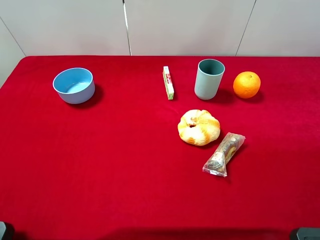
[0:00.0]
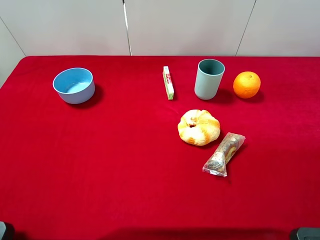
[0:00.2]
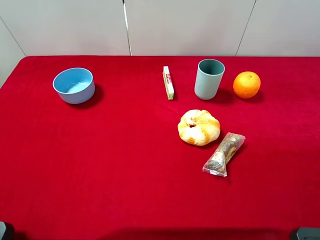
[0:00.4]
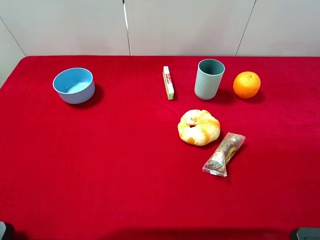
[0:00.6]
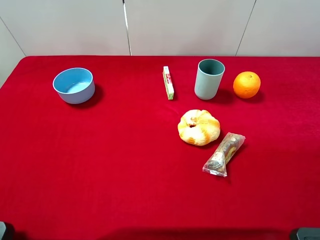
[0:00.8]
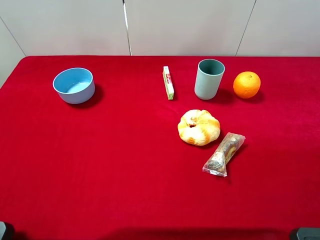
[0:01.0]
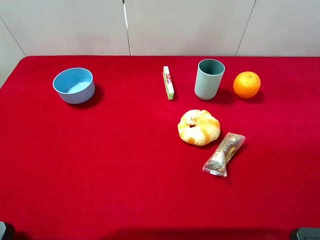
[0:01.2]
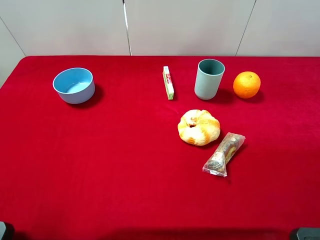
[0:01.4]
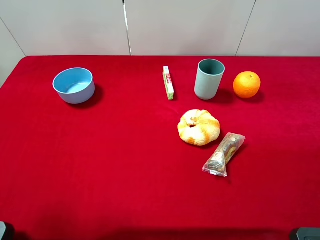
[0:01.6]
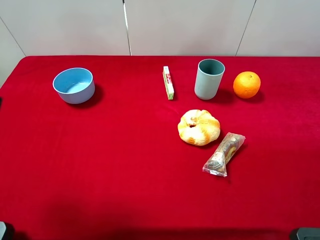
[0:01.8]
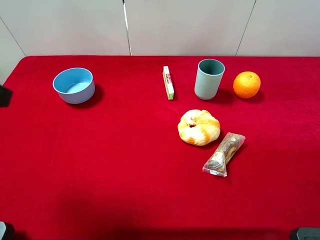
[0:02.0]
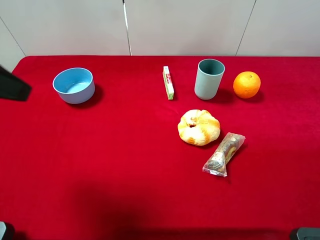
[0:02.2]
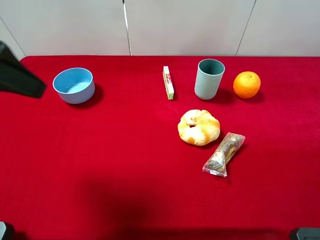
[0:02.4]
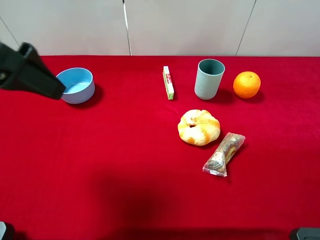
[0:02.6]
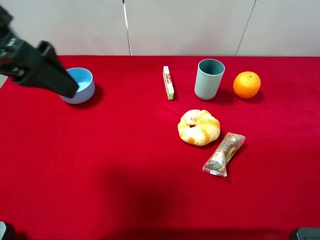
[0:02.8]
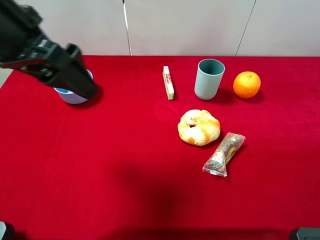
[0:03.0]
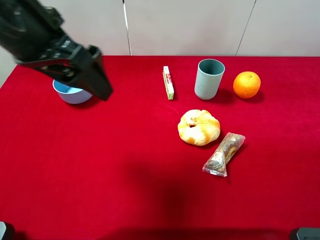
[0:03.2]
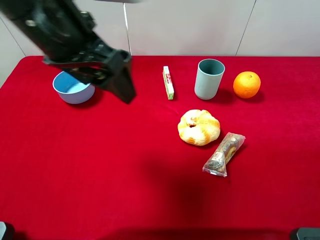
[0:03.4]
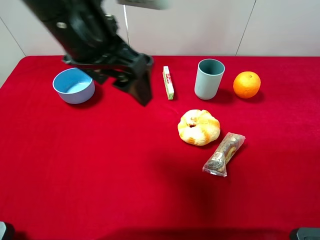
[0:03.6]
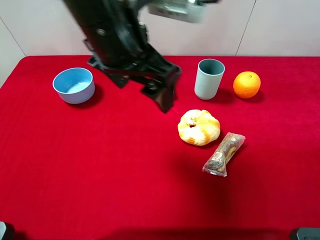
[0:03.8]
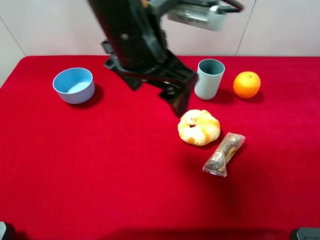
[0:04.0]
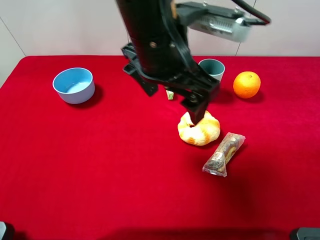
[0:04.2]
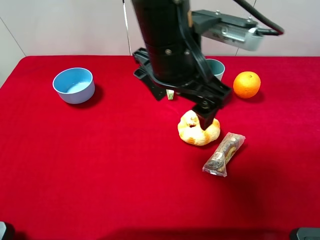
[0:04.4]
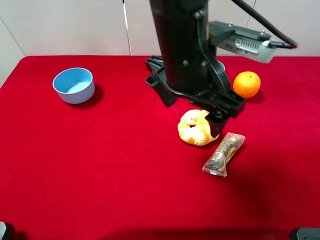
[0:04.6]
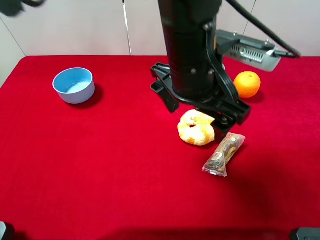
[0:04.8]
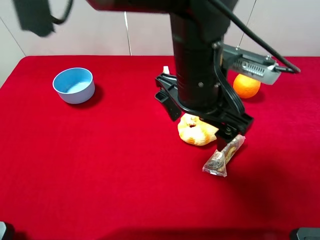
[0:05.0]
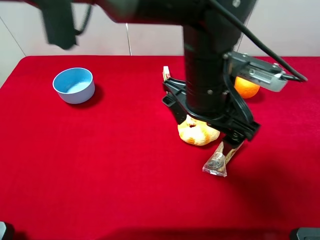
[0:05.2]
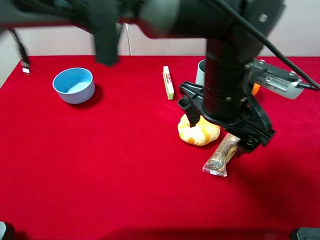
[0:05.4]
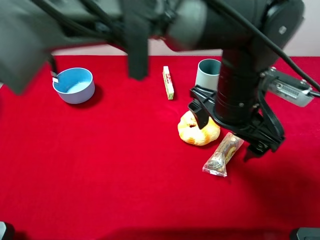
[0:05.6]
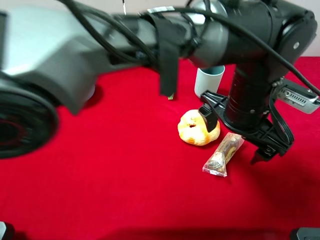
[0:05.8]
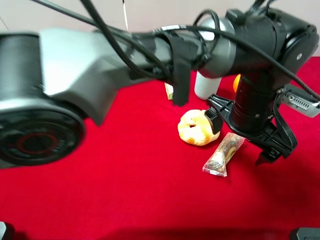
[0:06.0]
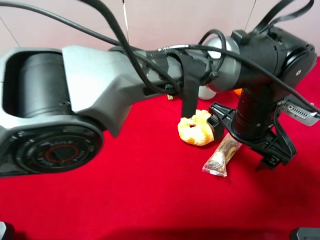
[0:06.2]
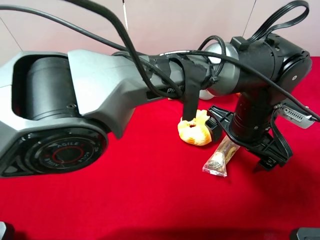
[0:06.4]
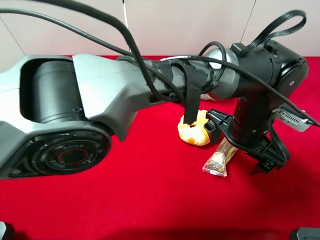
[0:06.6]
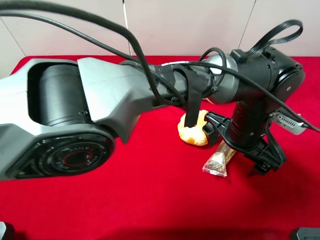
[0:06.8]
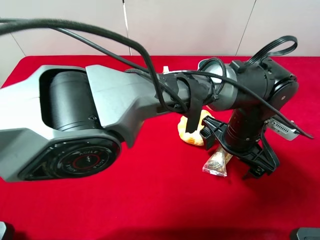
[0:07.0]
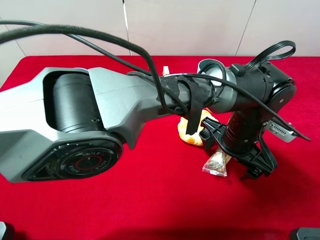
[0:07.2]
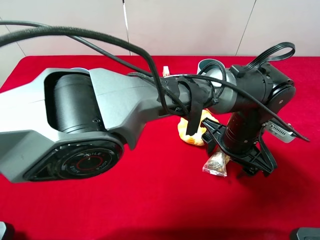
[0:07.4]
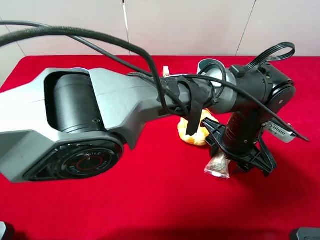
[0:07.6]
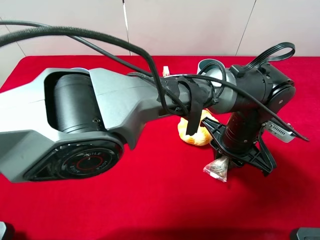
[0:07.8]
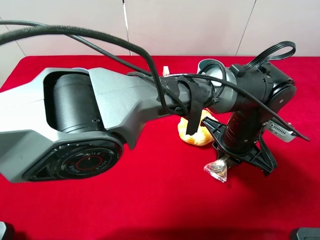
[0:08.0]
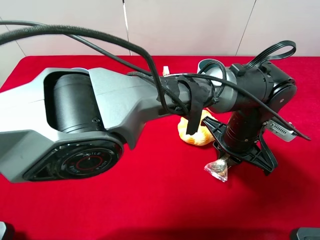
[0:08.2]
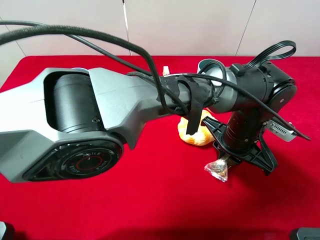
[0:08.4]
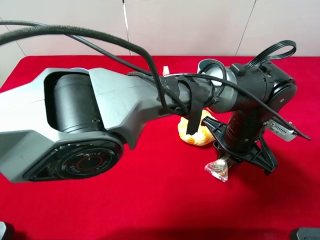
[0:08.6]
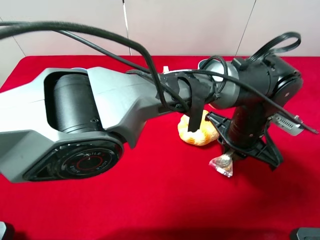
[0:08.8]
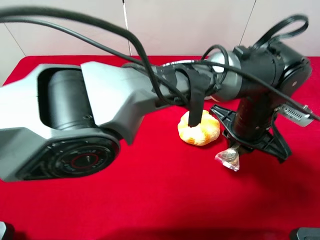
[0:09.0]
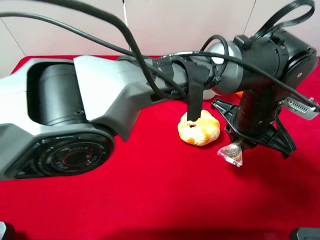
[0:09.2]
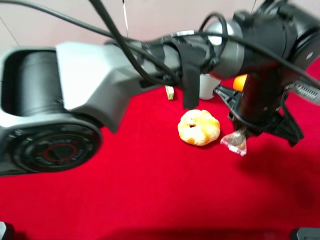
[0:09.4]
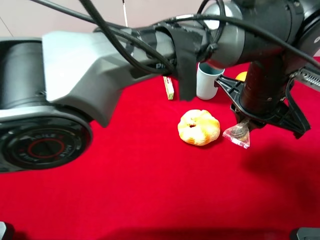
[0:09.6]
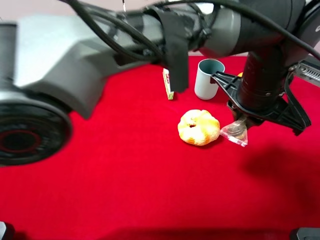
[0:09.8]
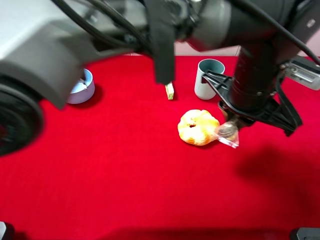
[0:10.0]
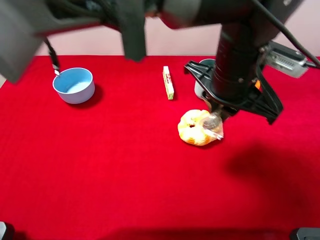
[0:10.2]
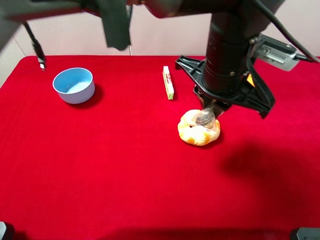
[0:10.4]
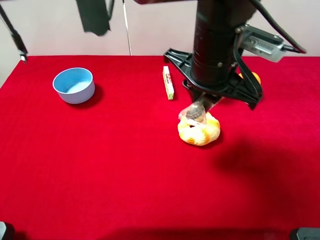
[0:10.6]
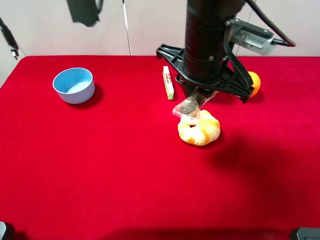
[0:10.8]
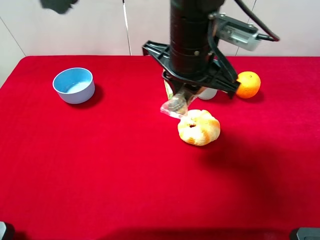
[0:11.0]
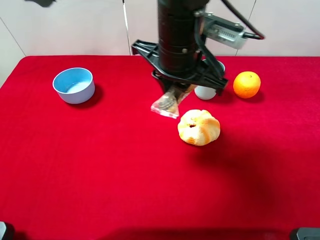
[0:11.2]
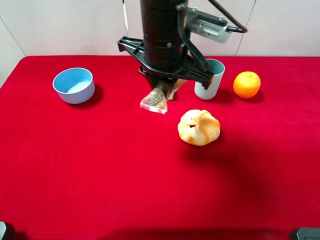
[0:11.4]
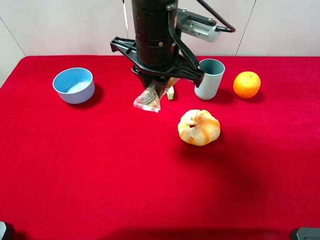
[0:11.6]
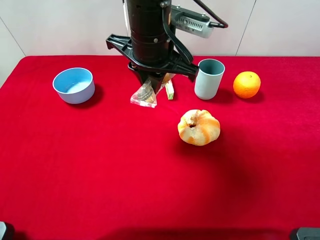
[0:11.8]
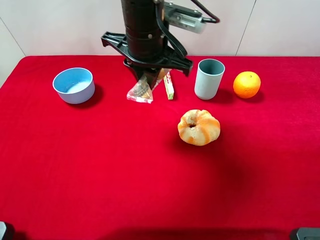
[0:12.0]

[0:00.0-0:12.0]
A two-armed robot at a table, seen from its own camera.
Task of the whole recording: the gripper move the object.
Step, 0:00.0 to 0:08.0: Grasp the chocolate with the left gripper.
0:01.6 to 0:03.0: The left gripper is displaced to the right and forward by some 15 cm.
0:03.0 to 0:04.4: The left gripper moves to the right, some 20 cm.
0:04.4 to 0:06.0: The left gripper travels to the right and downward by some 15 cm.
0:06.0 to 0:07.6: The left gripper heads downward, covering approximately 5 cm, and closes.
0:07.6 to 0:09.0: The left gripper closes.
0:09.0 to 0:10.4: The left gripper travels upward and to the left by roughly 10 cm.
0:10.4 to 0:12.0: The left gripper goes about 15 cm to the left and forward.

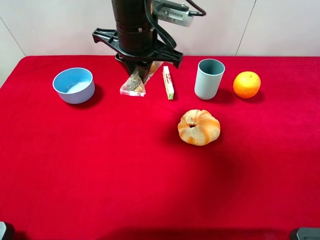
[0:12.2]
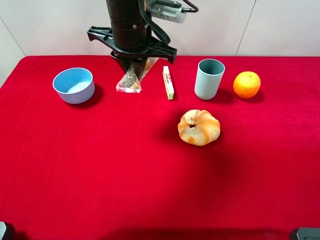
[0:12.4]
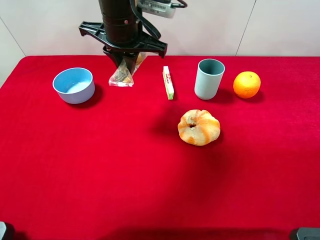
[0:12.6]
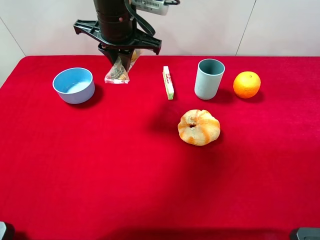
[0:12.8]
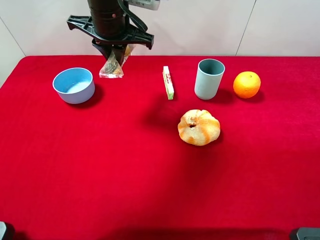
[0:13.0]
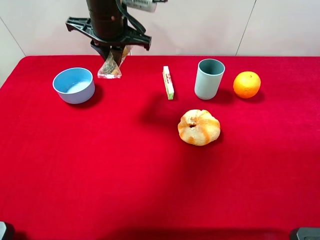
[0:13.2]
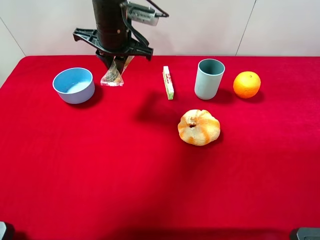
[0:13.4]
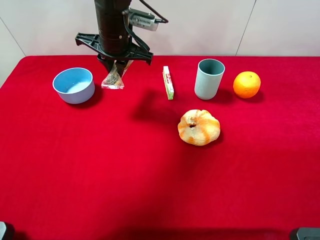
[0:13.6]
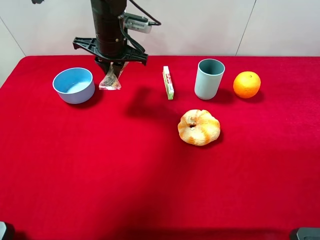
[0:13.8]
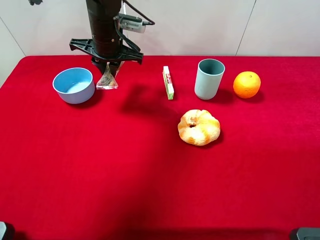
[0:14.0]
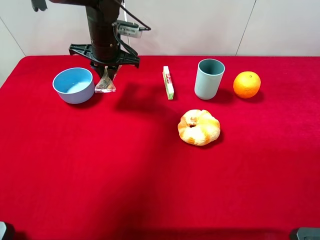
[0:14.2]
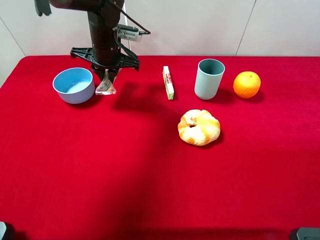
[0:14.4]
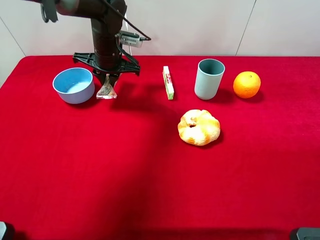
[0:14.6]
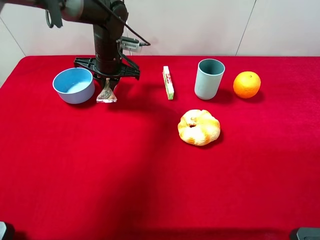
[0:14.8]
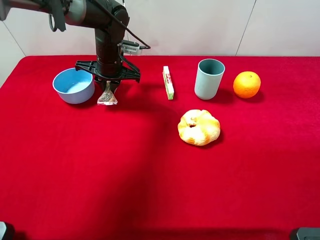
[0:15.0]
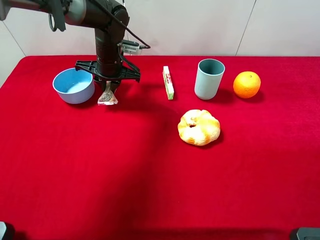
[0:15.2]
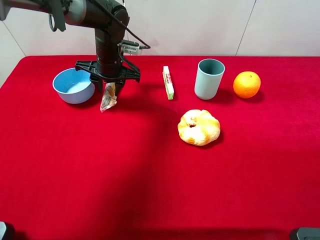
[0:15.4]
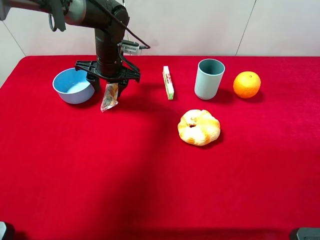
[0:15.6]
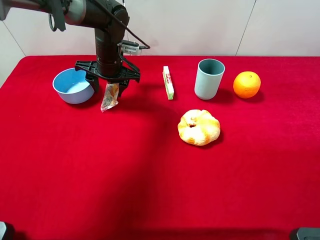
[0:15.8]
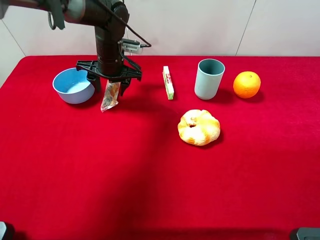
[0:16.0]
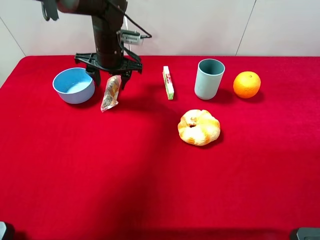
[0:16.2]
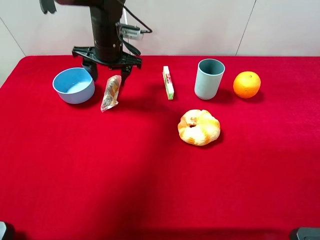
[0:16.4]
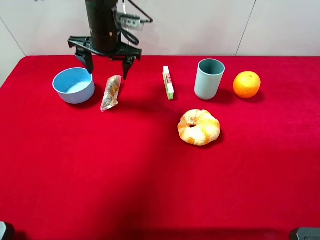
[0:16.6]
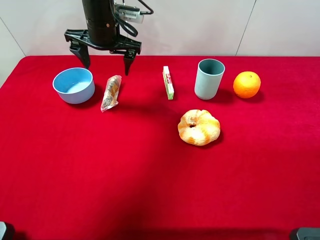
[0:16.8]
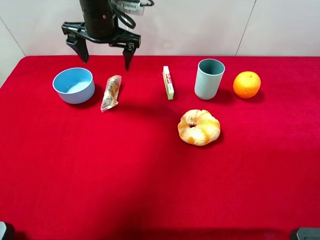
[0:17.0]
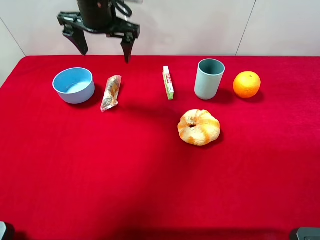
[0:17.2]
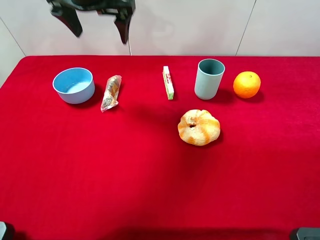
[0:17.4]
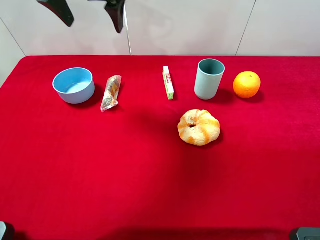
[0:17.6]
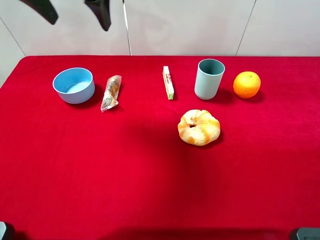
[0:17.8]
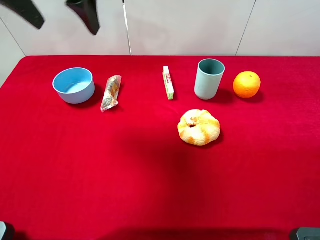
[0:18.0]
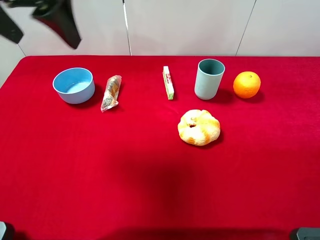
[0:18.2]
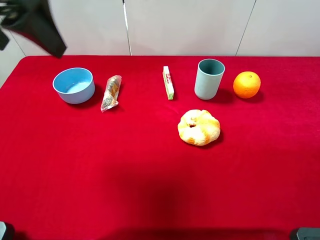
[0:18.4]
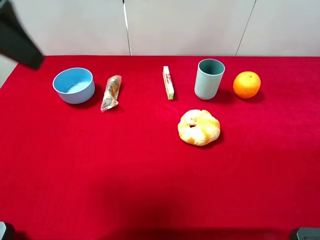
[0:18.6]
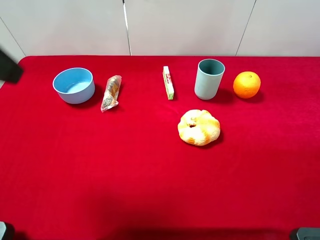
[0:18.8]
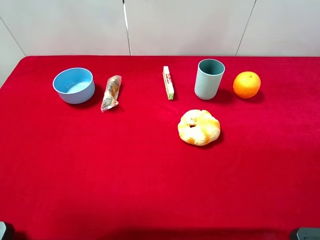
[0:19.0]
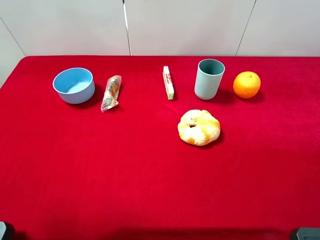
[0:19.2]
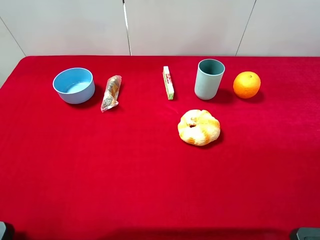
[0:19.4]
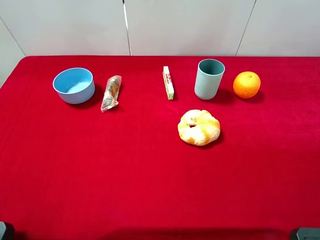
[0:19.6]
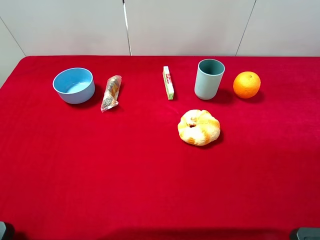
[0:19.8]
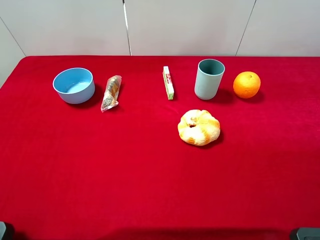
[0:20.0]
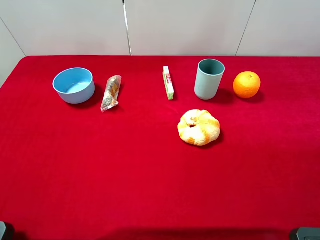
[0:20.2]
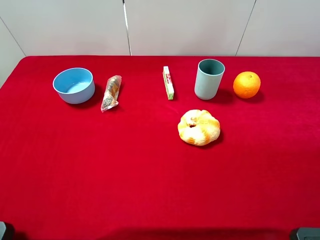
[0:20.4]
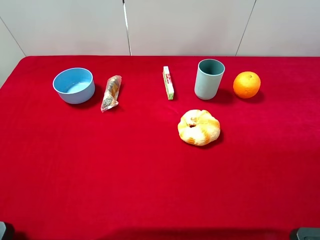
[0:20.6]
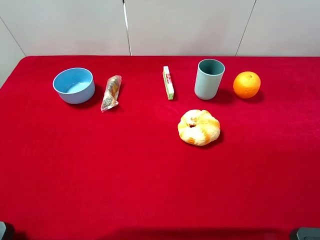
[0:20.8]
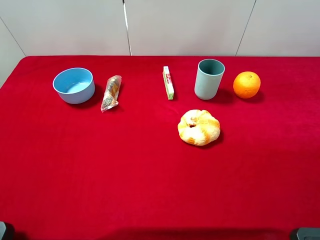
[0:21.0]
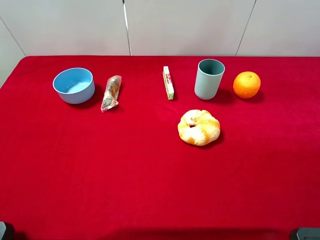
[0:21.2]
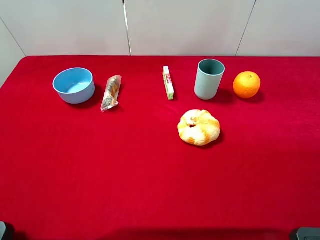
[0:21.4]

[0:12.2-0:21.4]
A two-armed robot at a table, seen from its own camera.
Task of the whole recording: the gripper move the object.
Step, 0:12.2 to 0:16.8: Place the chocolate on the table with the left gripper.
0:12.2 to 0:13.8: The left gripper heads forward, to the left and downward, covering some 10 cm.
0:13.8 to 0:15.2: The left gripper moves downward, approximately 5 cm.
0:15.2 to 0:16.8: The left gripper heads upward, covering approximately 10 cm, and opens up.
0:16.8 to 0:18.4: The left gripper heads backward, upward and to the left, covering approximately 25 cm.
0:18.4 to 0:19.8: The left gripper heads backward, to the left and downward, covering some 20 cm.

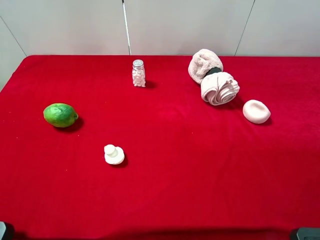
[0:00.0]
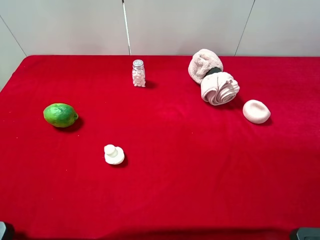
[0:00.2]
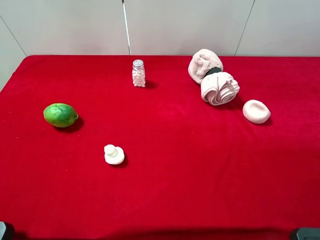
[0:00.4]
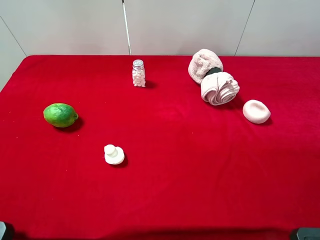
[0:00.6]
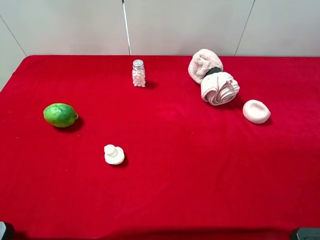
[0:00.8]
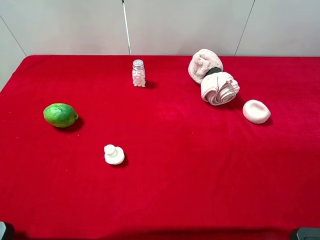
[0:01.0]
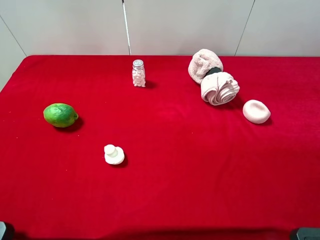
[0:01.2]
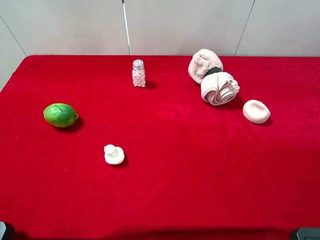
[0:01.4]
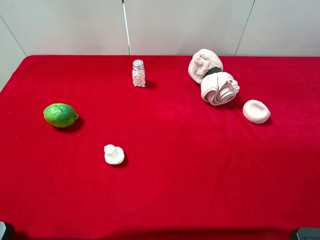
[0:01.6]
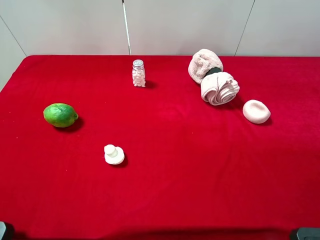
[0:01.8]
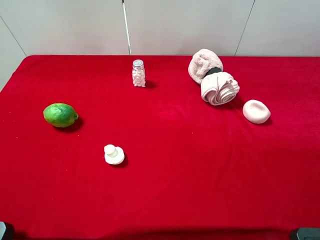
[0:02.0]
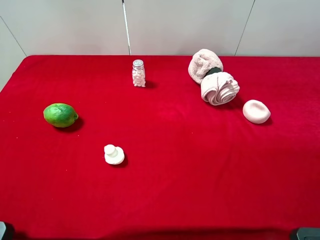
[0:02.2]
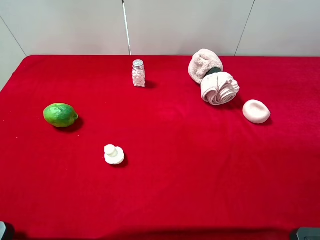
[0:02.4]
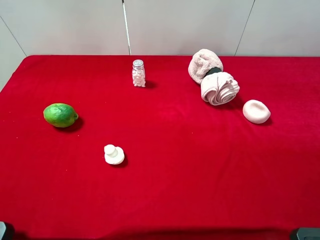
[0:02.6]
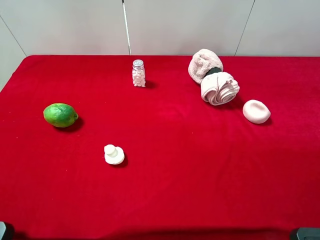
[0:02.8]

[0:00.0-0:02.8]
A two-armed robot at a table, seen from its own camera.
Task of the whole recording: the gripper move the object.
0:00.0 to 0:01.4: Neither gripper changes place.
